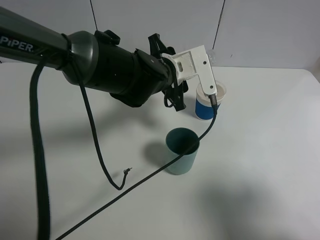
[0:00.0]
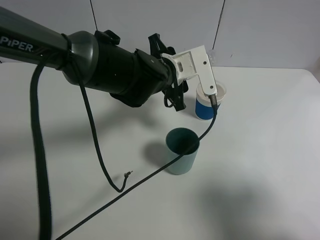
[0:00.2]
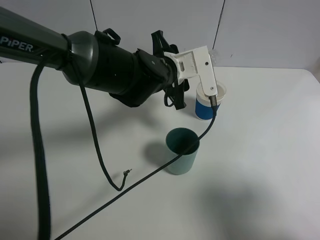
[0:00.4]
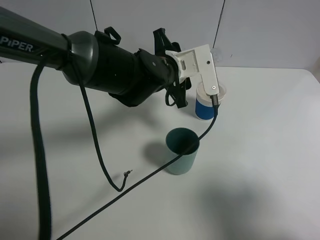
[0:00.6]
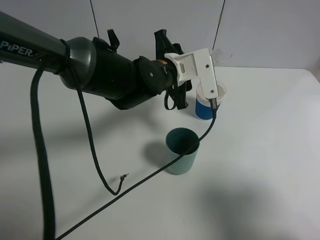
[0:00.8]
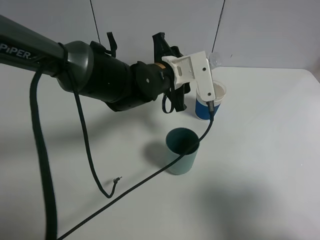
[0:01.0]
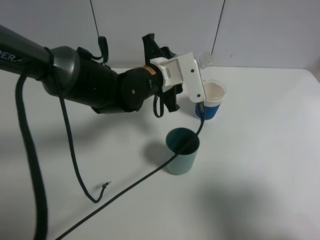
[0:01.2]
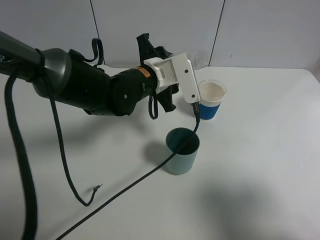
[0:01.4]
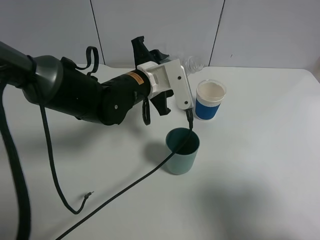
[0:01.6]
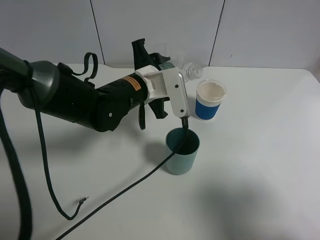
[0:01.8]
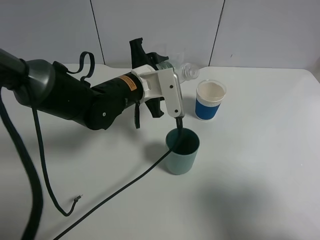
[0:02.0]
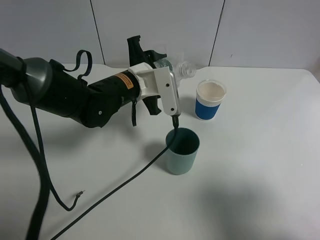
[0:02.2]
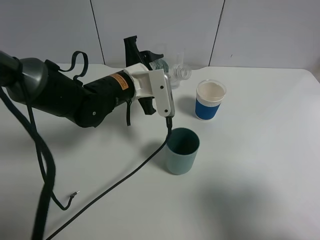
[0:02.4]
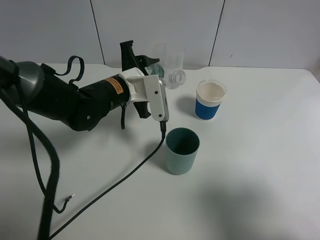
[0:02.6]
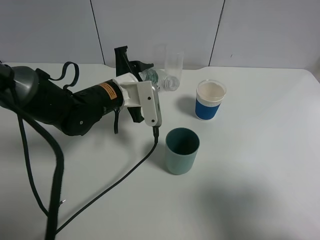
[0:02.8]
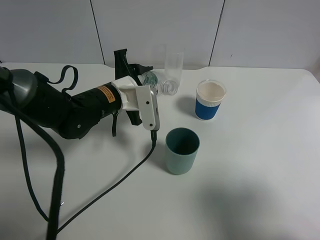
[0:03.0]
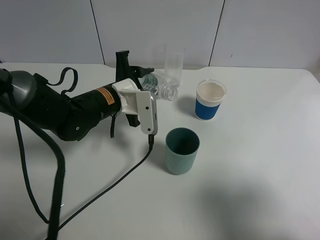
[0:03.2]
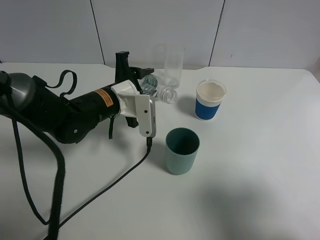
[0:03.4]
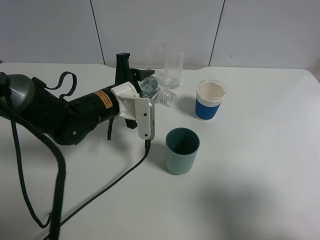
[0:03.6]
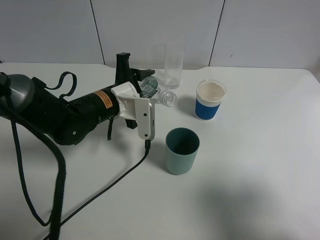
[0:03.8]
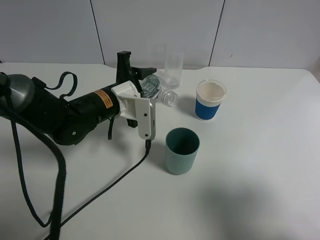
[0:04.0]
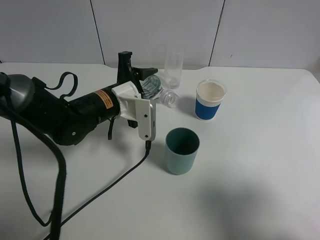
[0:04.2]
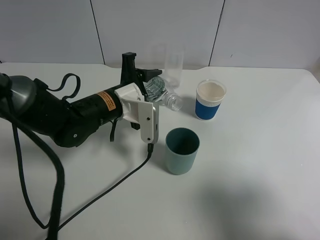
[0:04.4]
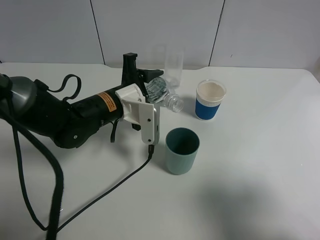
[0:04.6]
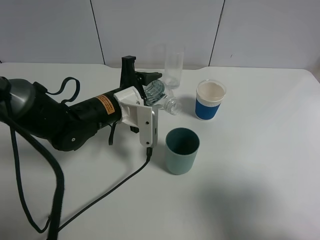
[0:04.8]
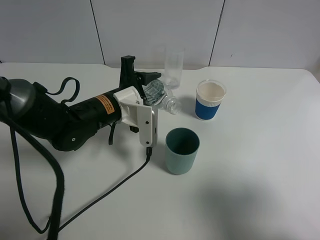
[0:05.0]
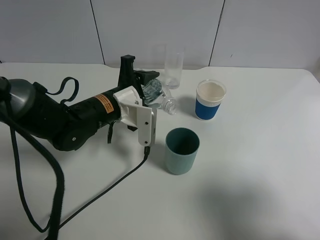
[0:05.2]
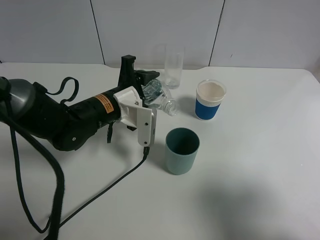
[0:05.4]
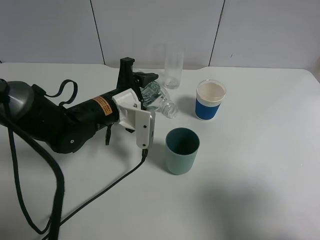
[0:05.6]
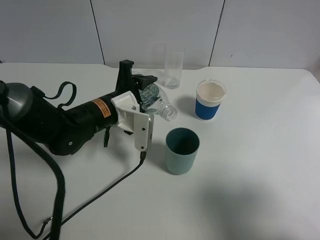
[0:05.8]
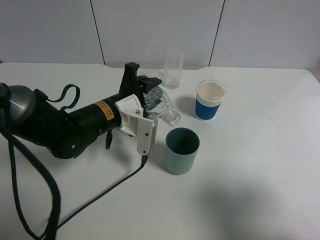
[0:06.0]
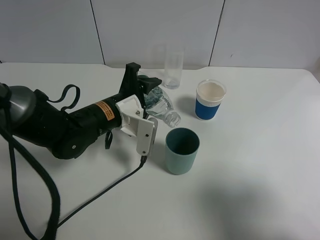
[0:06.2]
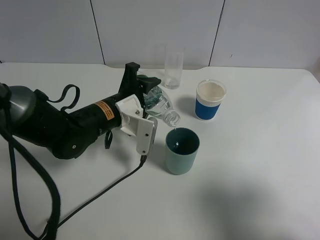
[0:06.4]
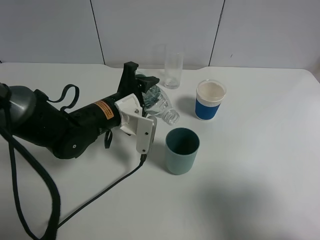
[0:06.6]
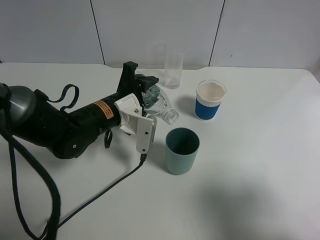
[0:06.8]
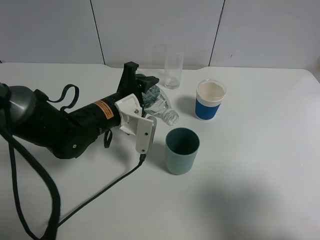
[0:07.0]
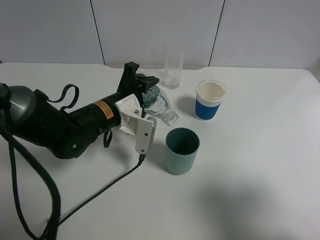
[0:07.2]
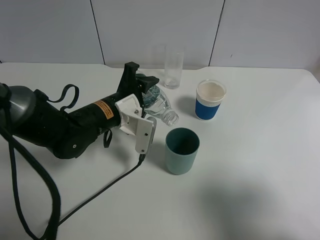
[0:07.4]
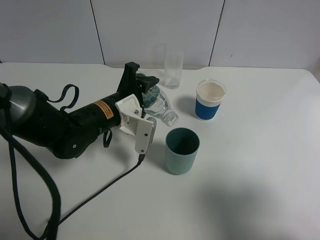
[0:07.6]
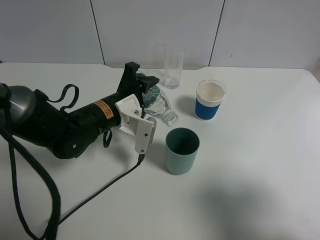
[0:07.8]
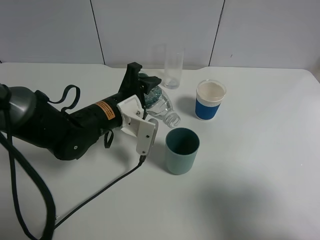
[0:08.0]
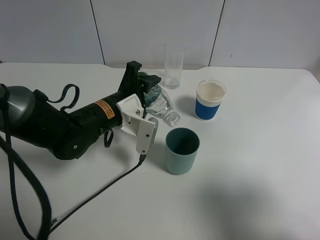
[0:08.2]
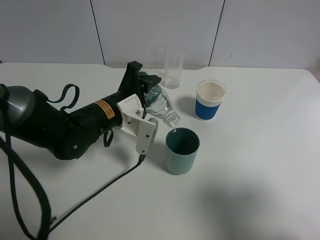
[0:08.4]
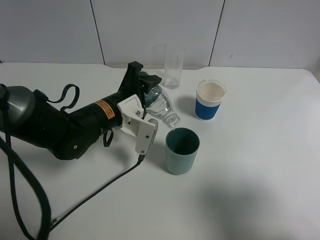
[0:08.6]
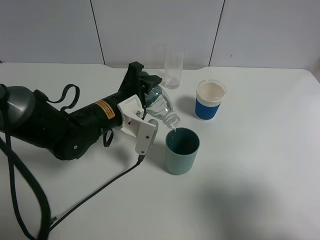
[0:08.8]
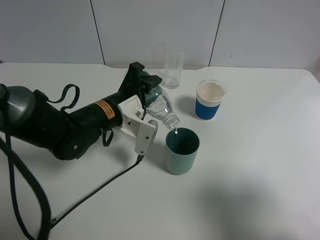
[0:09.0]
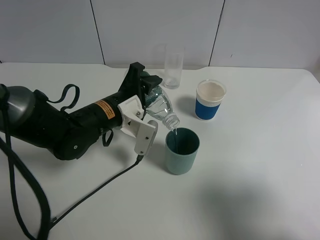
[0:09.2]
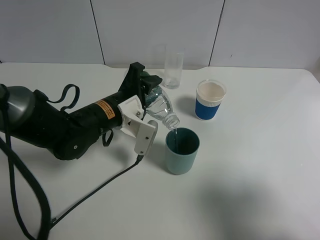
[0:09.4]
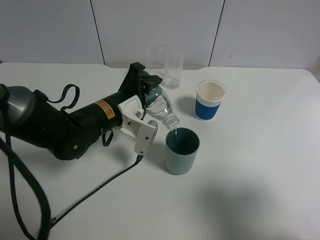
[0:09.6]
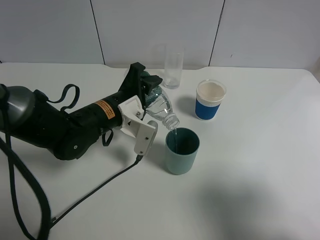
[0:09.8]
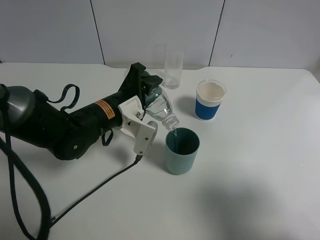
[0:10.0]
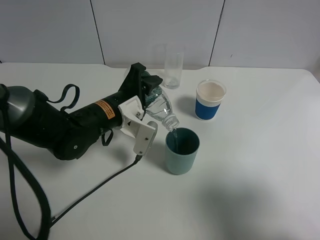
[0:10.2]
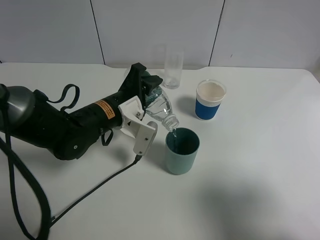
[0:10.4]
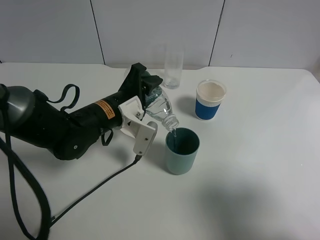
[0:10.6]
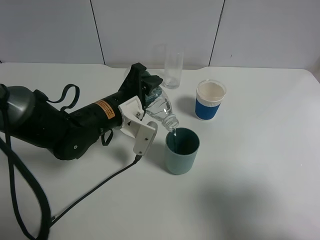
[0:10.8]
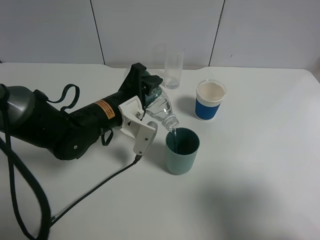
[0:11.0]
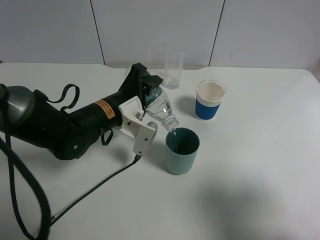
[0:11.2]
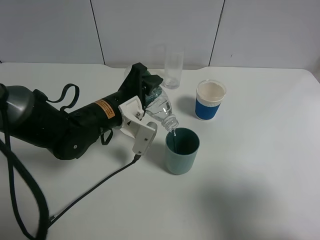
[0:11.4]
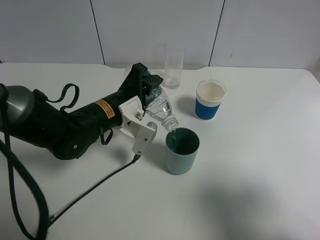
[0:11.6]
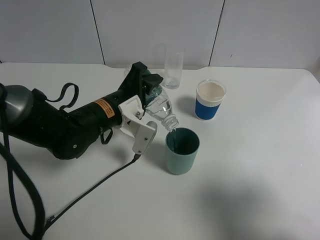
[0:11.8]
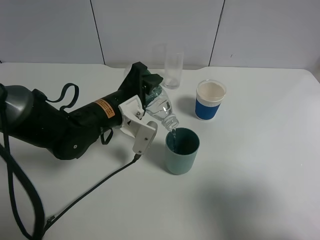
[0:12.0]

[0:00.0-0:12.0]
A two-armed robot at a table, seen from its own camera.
Task of the whole recording: use a gripper to hold the bottle of the drink and pour it into a random cup.
0:01.6 to 0:03.0: The left gripper shifts roughly 5 cm to the left.
0:03.0 to 0:06.0: The grippers move only a little.
0:06.0 to 0:09.0: The grippers stay close to where they were, moving slightly.
0:09.0 to 0:10.4: Both grippers stay about where they are.
0:10.4 to 0:12.0: The two grippers keep their place.

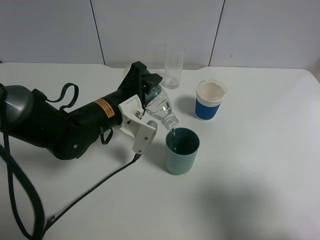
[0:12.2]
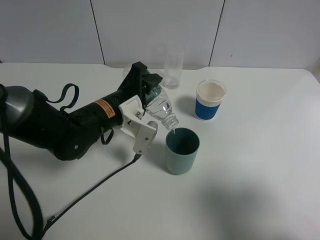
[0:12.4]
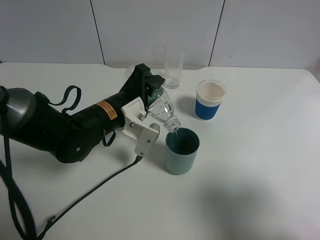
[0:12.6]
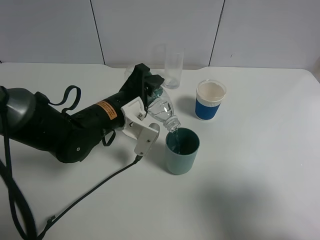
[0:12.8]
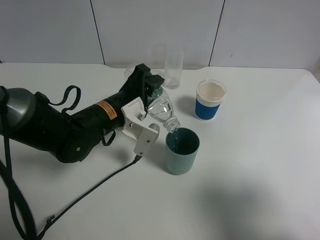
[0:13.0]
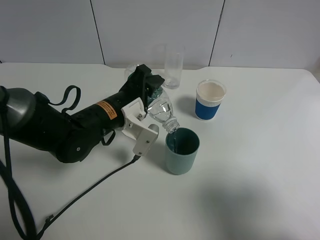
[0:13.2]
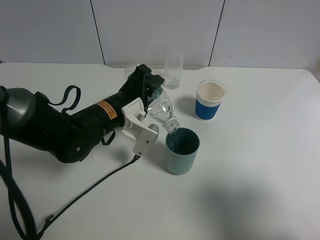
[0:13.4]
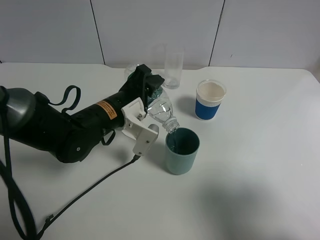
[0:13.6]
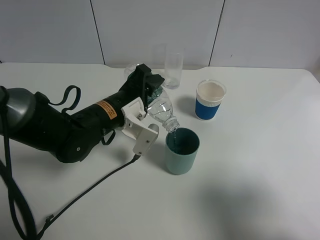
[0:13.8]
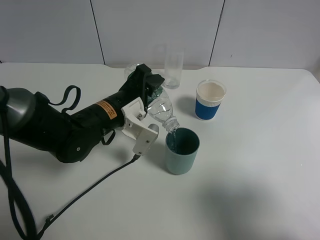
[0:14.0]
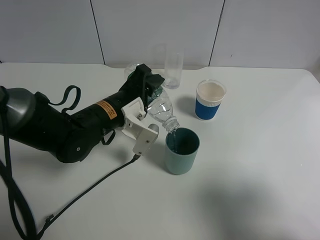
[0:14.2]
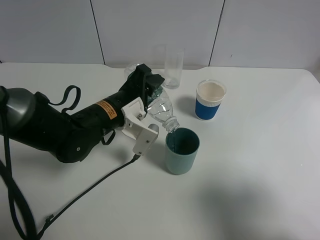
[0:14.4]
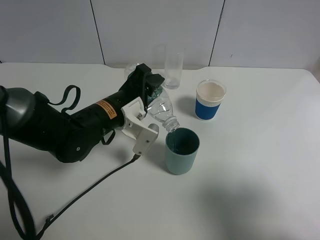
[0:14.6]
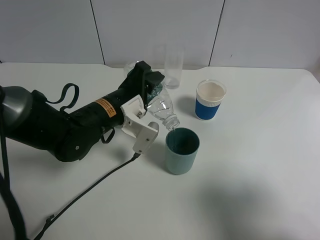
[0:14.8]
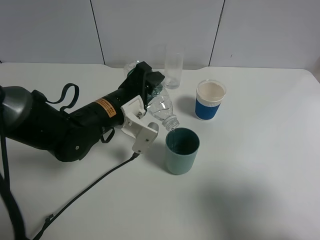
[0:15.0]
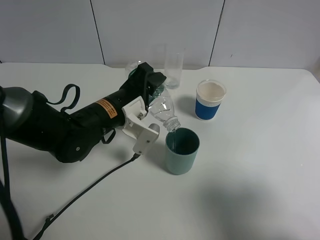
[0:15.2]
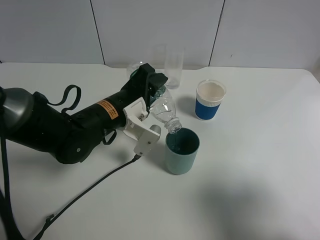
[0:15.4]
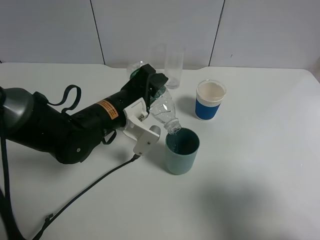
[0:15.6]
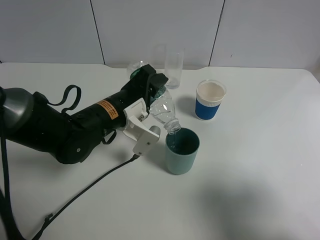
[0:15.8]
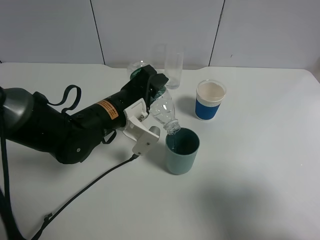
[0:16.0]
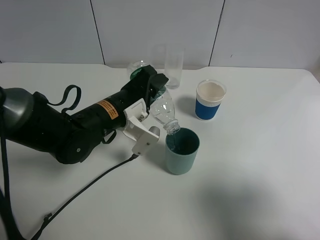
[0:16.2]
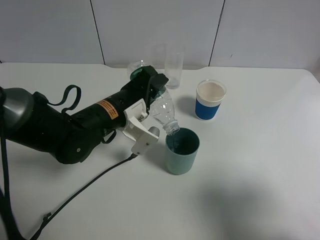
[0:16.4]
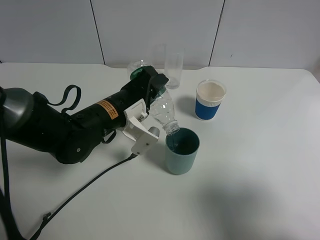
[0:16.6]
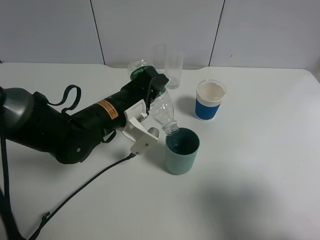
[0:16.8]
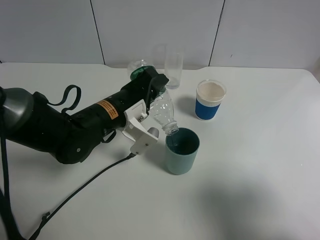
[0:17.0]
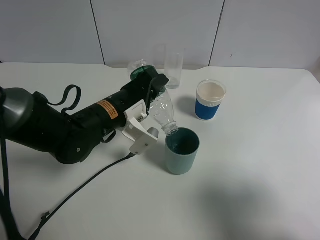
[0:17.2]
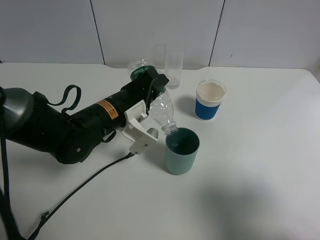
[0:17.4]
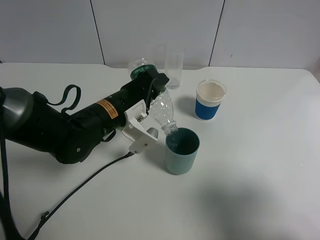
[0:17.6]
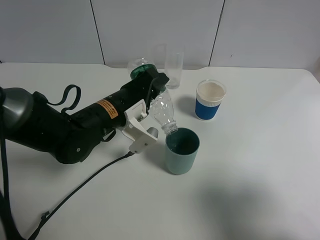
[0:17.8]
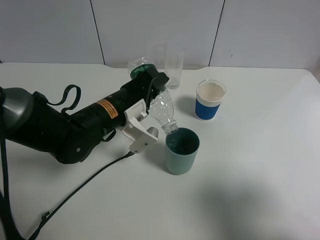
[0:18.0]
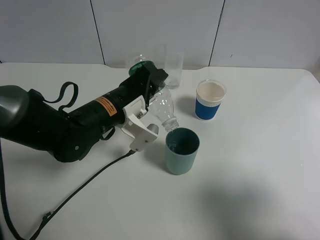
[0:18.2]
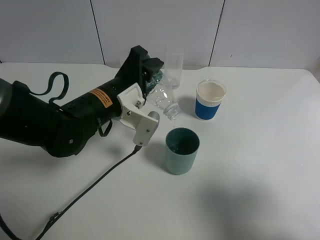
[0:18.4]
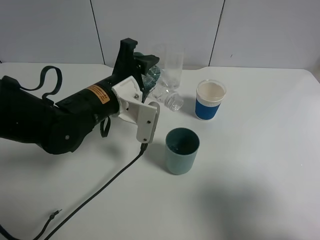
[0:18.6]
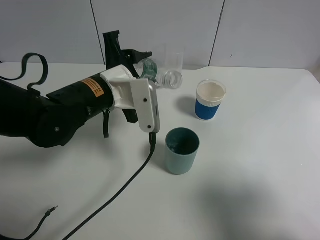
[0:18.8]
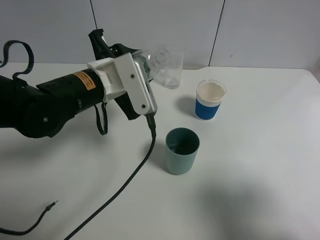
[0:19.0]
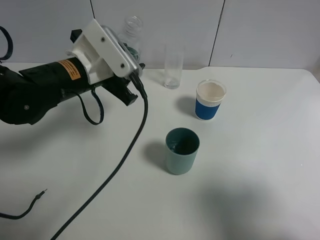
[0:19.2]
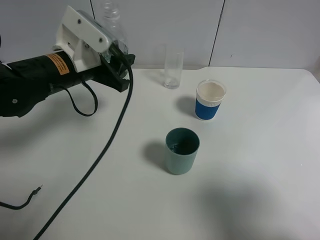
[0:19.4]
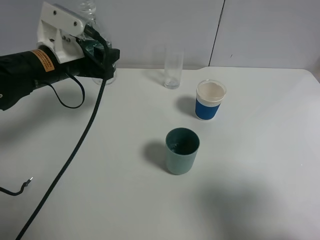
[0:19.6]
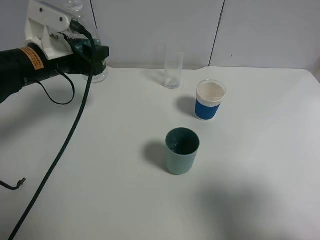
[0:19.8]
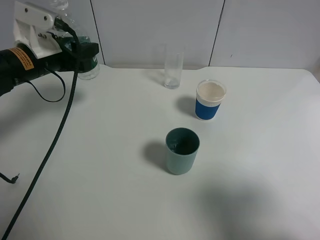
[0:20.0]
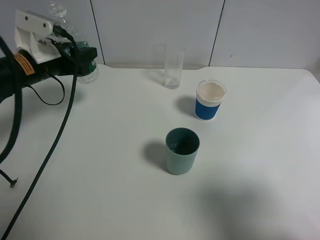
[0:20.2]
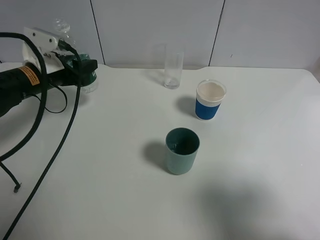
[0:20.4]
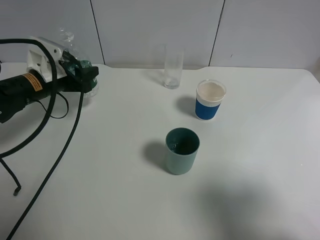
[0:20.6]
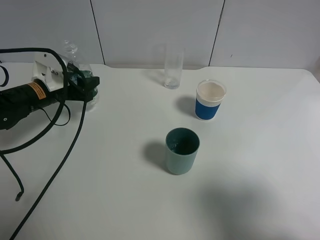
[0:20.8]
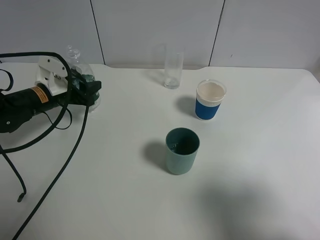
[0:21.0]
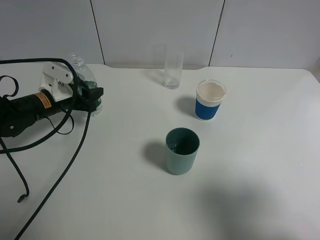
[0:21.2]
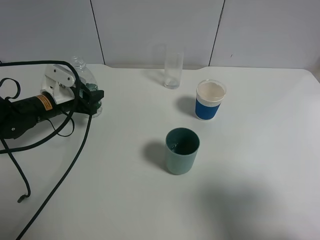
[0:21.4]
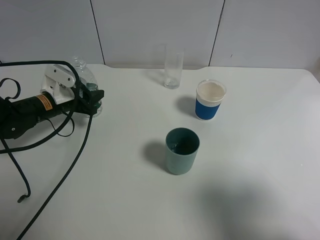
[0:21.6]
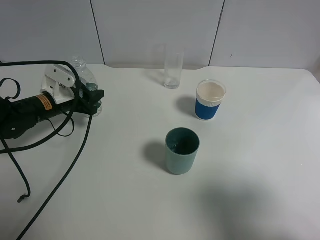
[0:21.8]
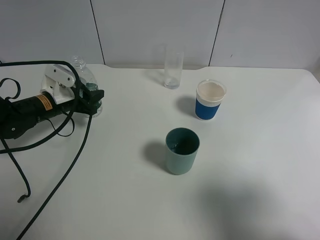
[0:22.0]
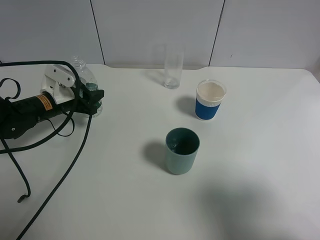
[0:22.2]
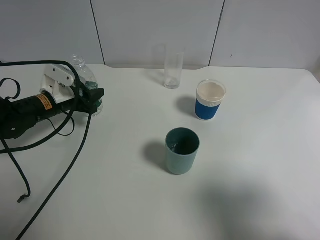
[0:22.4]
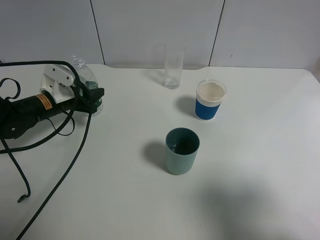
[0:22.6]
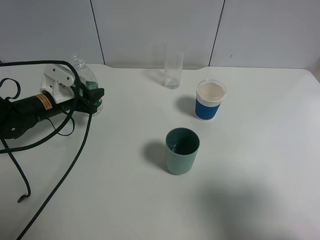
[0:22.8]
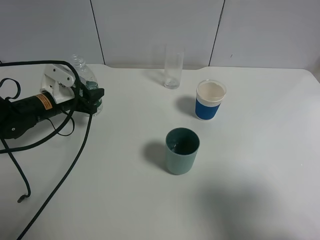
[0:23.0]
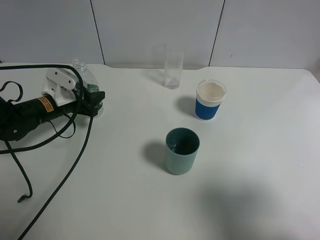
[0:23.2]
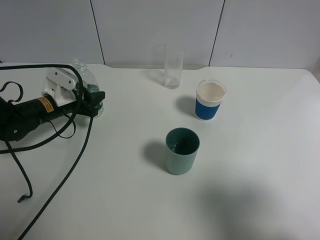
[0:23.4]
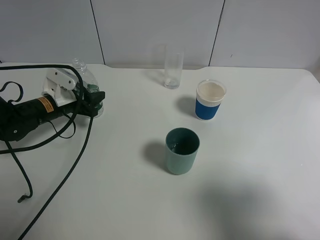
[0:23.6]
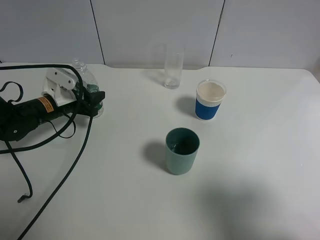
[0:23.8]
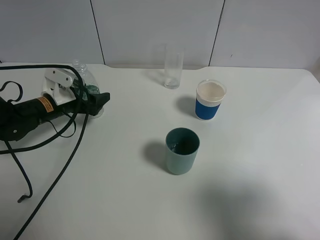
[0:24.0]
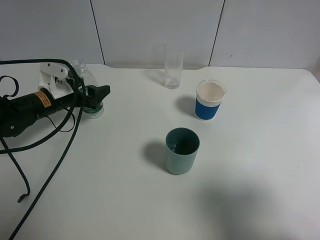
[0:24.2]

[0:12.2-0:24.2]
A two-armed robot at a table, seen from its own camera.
Task of the whole recording: use a gripper to hold the bottle of the drink and pour it into a random cup.
Step, 0:12.2 to 0:18.2: Pour the mineral water into the cyan cup with the left gripper.
0:12.2 to 0:13.8: Both grippers stay put.
0:13.8 to 0:15.2: Both grippers stay about where they are.
0:15.2 to 0:16.6: The grippers stay close to where they were, moving slightly.
0:16.6 to 0:18.2: Both grippers stay about where they are.
0:18.2 to 0:19.8: The left gripper moves to the left and upward, approximately 15 cm.
0:19.8 to 0:21.2: The left gripper heads downward, covering approximately 10 cm.
0:21.2 to 0:22.6: Both grippers stay put.
0:22.6 to 0:24.2: The left gripper opens up.
